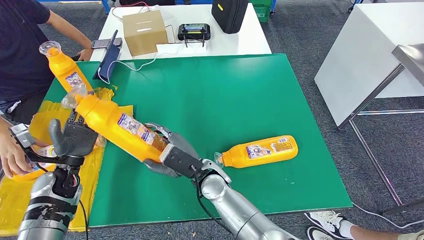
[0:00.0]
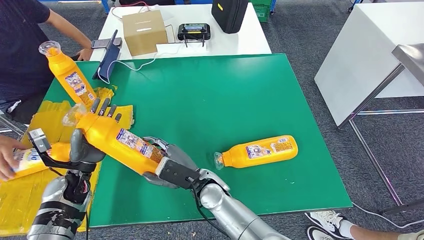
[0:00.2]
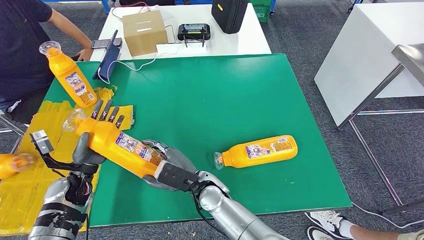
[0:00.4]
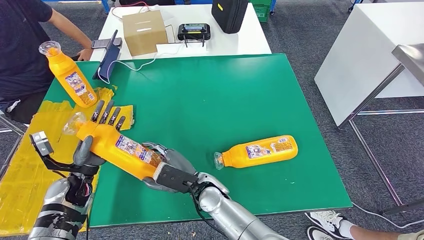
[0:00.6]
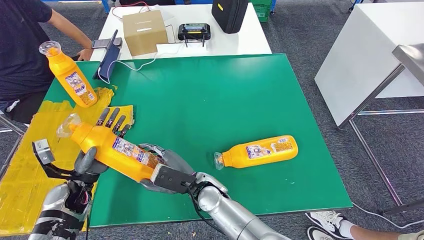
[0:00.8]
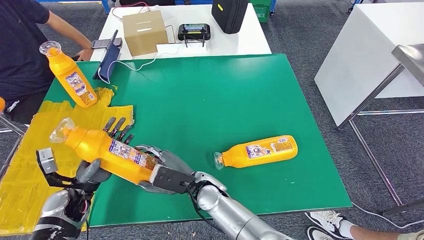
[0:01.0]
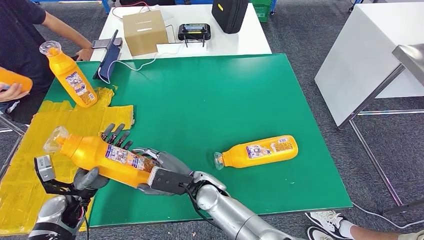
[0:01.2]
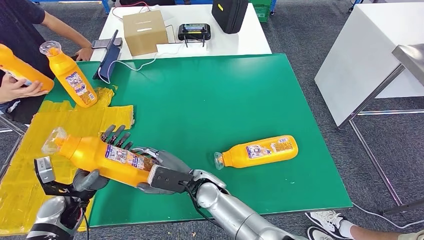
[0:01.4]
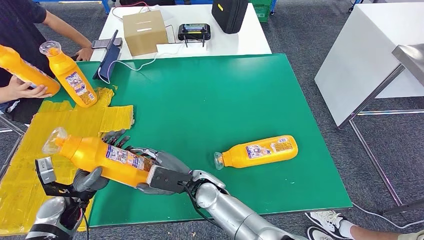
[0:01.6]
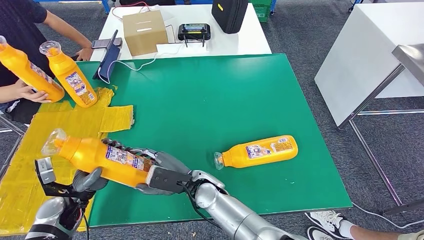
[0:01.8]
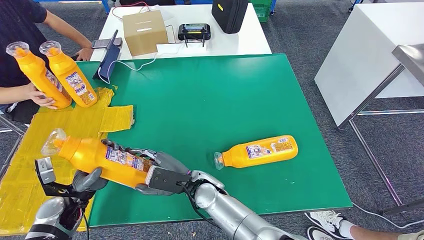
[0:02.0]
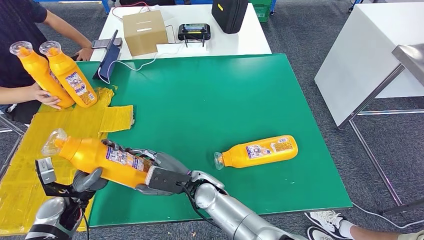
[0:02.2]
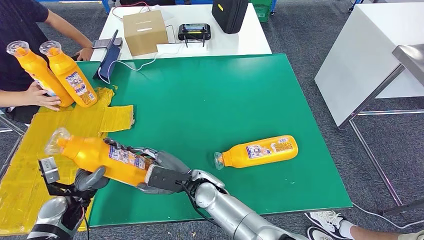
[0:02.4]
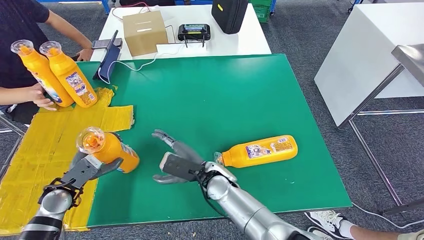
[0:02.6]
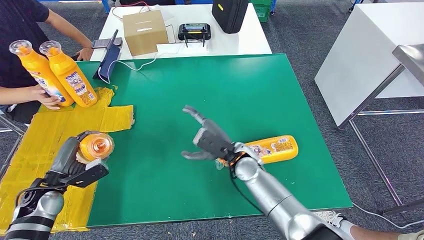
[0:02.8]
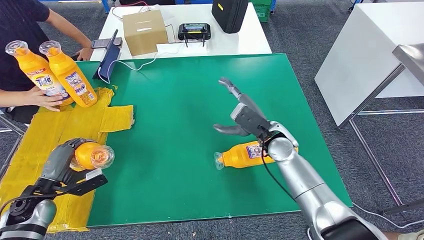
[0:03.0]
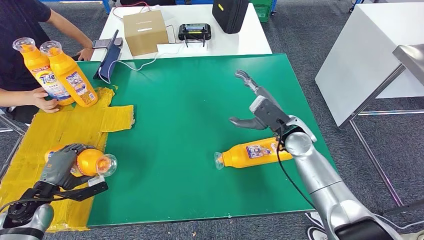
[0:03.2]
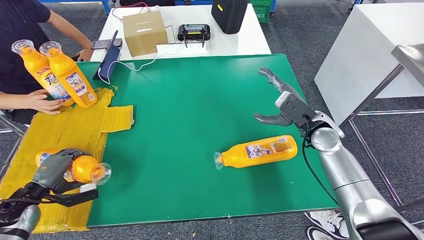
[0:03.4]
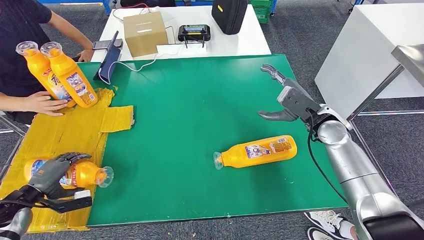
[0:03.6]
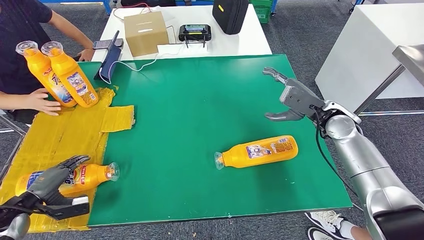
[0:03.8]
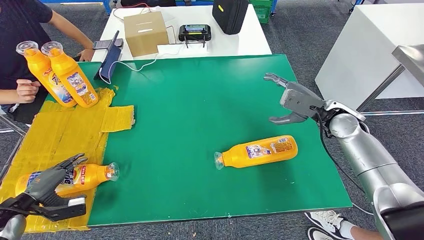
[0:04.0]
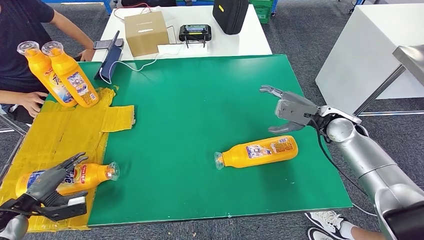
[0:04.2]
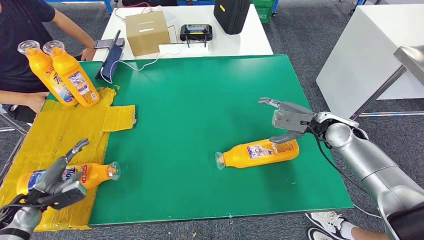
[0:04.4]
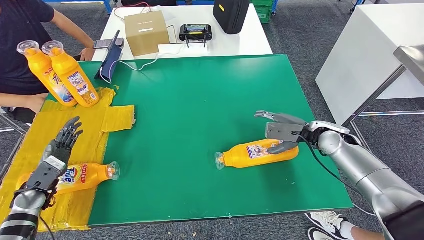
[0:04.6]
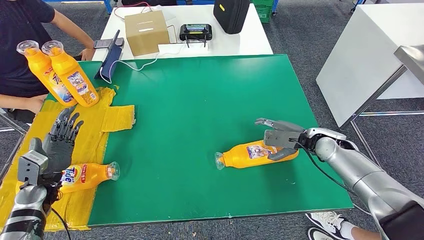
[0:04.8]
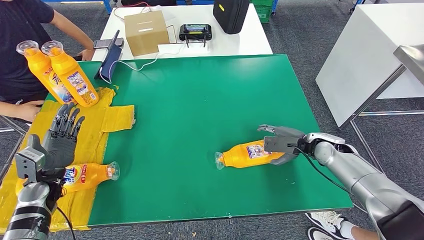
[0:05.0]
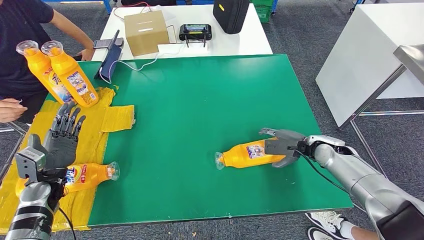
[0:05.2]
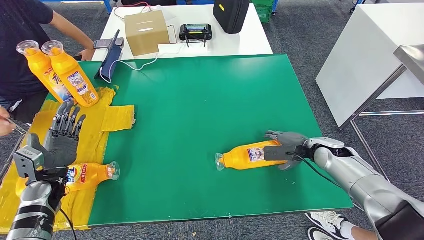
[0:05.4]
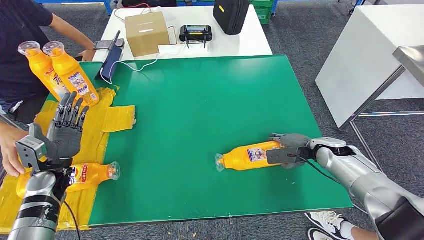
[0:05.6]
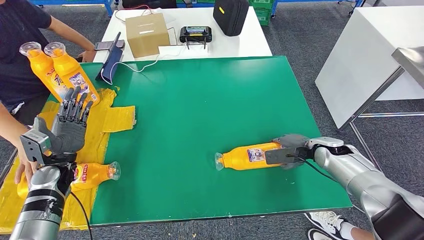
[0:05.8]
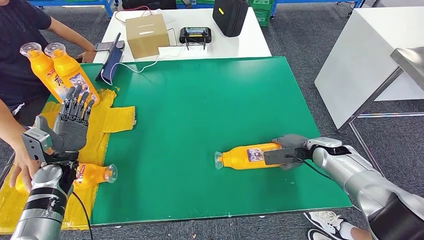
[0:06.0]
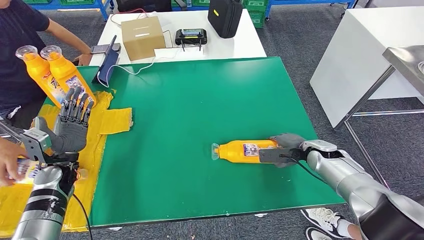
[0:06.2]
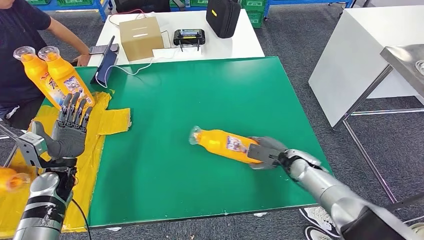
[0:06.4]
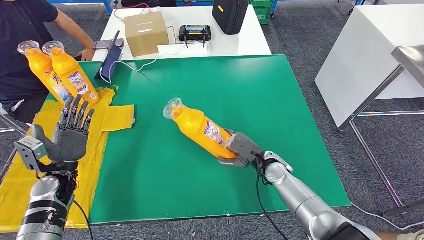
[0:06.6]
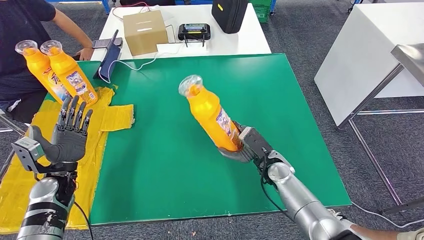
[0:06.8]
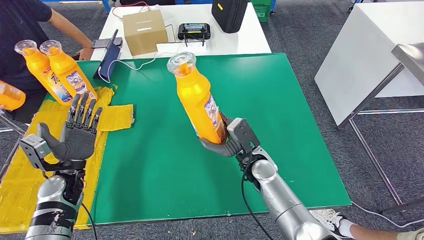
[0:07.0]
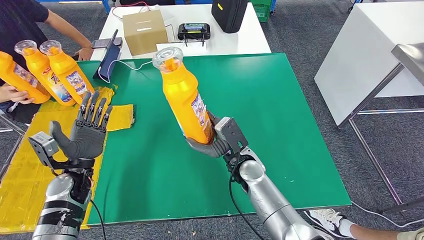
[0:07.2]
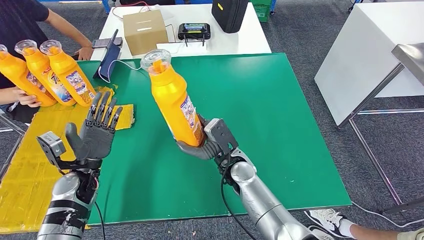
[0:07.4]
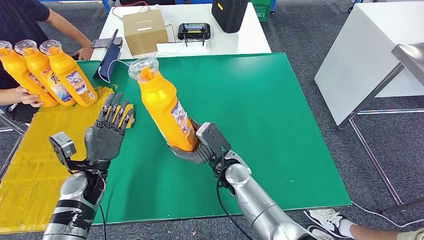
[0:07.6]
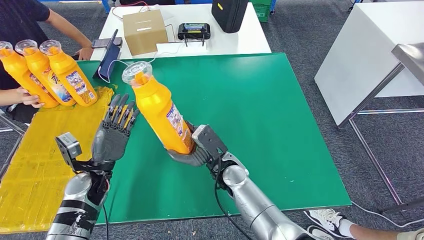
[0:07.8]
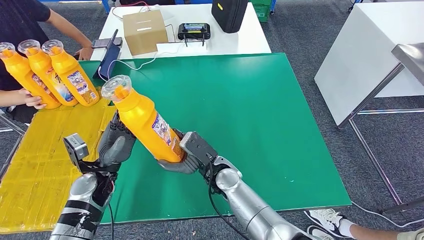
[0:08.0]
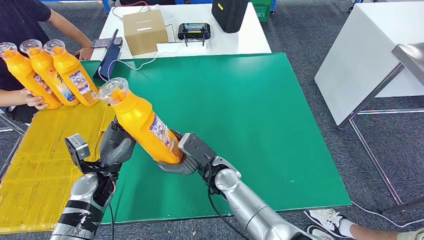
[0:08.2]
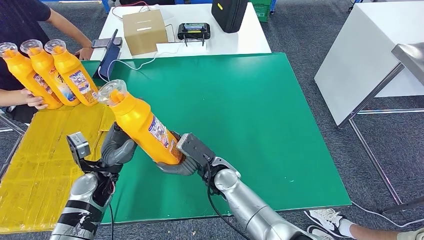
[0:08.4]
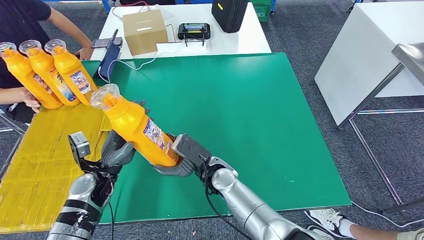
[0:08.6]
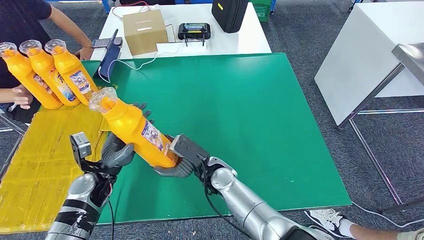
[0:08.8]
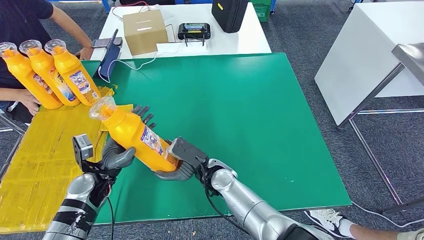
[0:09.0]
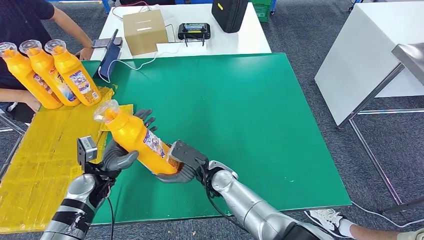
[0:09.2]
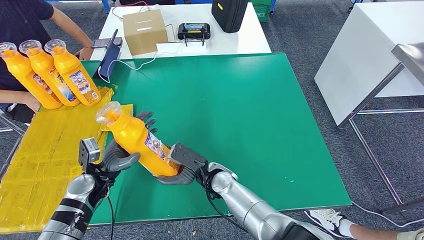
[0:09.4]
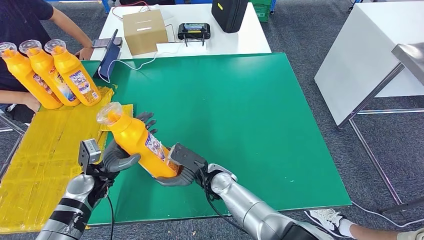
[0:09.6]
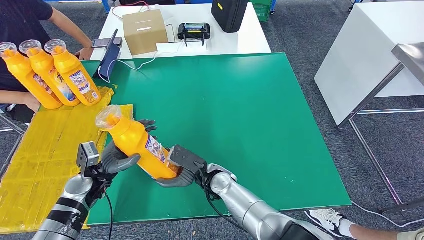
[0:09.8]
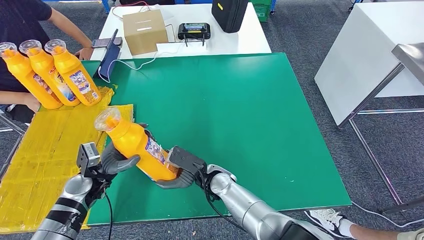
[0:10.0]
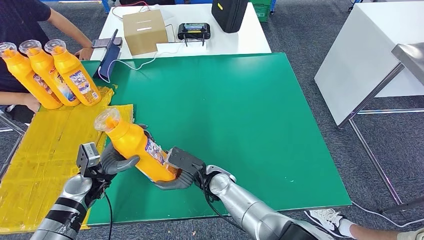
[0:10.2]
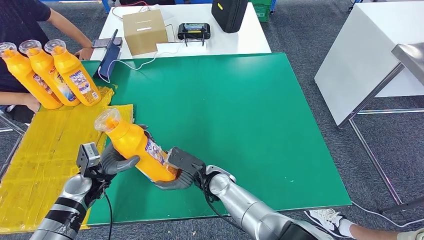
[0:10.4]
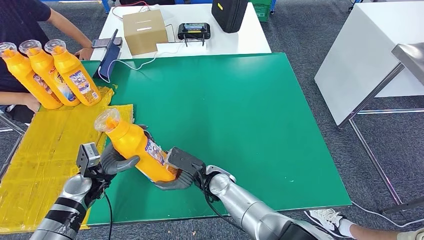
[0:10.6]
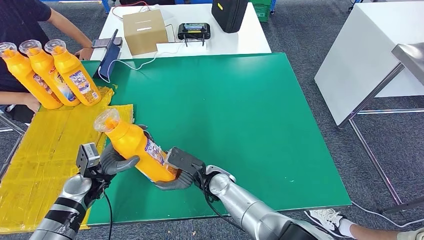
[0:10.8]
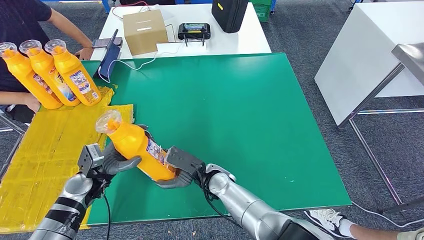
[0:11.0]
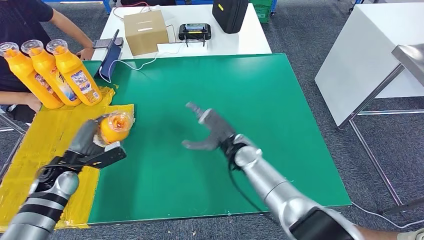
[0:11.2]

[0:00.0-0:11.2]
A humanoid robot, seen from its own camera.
Step, 0:01.8 to 0:05.6: Flip the bottle to face forward.
Step, 0:05.8 to 0:09.2: Pick up the bottle from the table.
0:00.0 to 0:01.6: The left hand heads backward, covering roughly 5 cm.
0:08.0 to 0:09.6: The hands stay close to where they were, moving slightly.

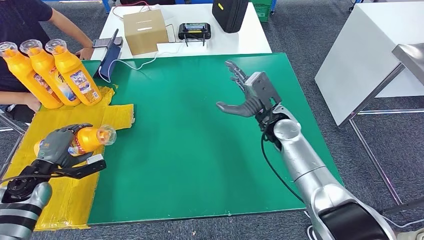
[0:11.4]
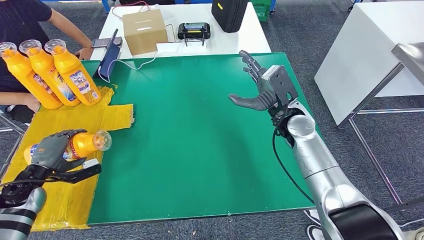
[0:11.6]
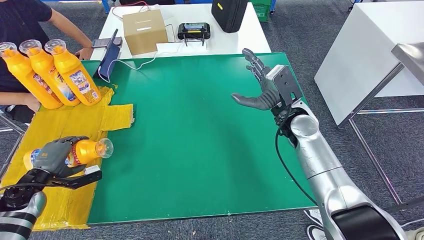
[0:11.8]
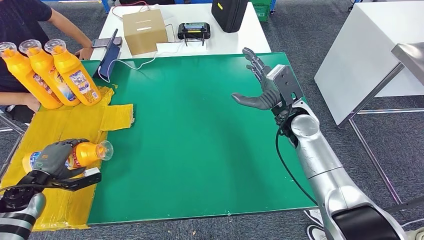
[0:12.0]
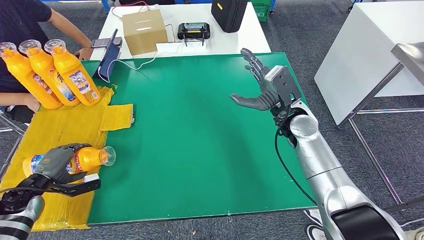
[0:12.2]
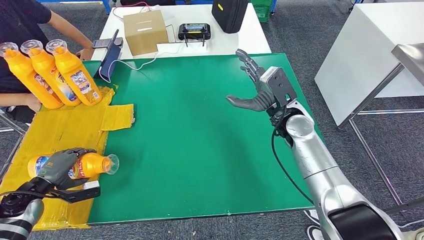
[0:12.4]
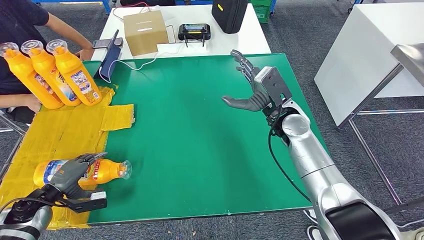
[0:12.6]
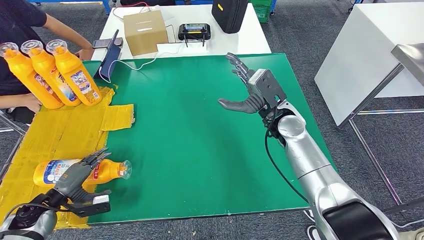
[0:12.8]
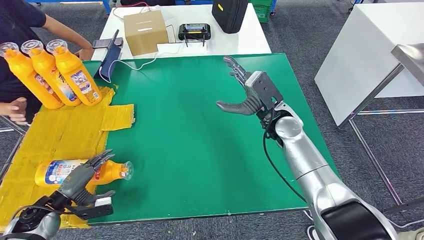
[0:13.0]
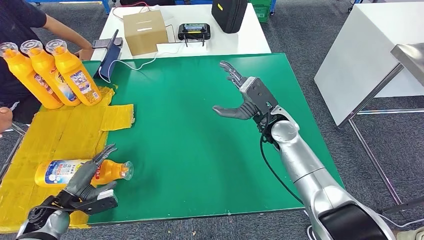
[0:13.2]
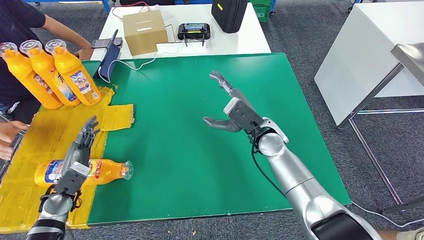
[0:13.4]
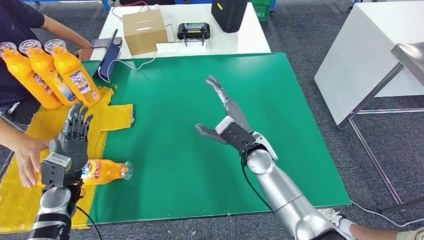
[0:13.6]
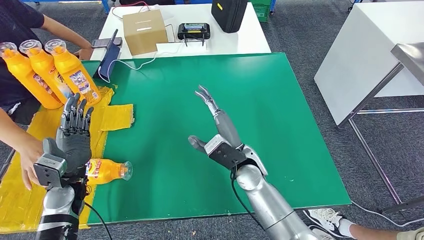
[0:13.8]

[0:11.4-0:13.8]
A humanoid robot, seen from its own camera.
Step, 0:11.4 to 0:13.8: Flip the bottle to face forward.
0:11.4 to 0:12.6: The left hand is displaced downward by about 5 cm.

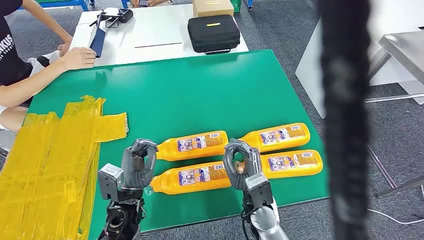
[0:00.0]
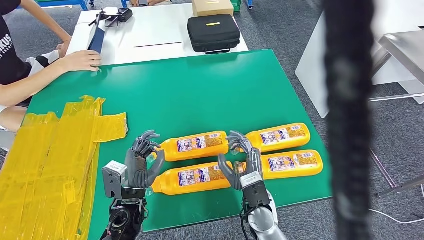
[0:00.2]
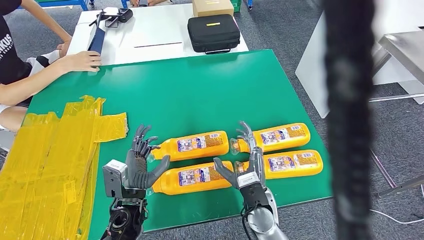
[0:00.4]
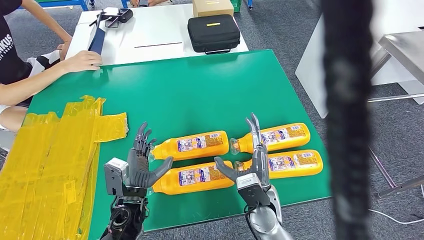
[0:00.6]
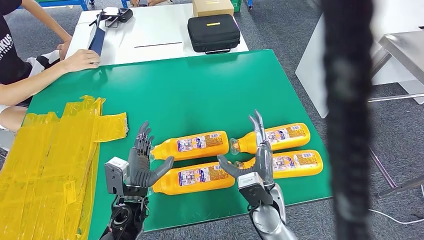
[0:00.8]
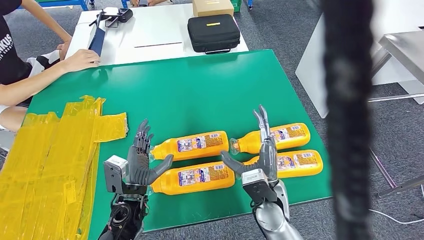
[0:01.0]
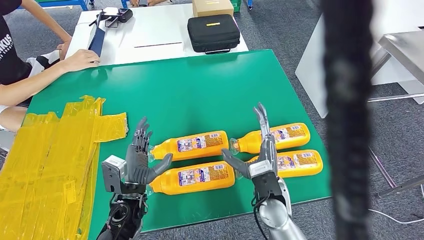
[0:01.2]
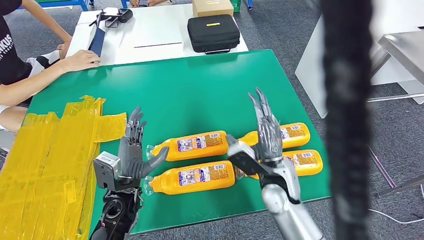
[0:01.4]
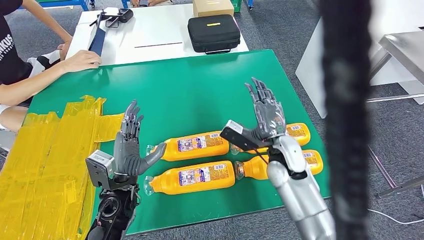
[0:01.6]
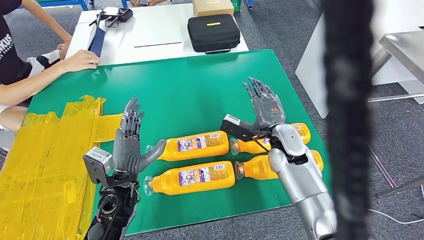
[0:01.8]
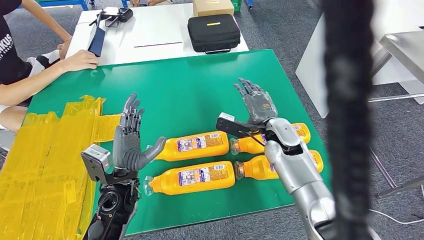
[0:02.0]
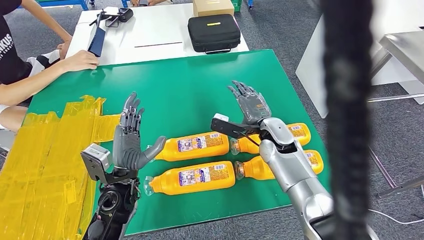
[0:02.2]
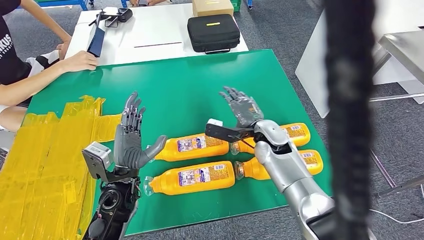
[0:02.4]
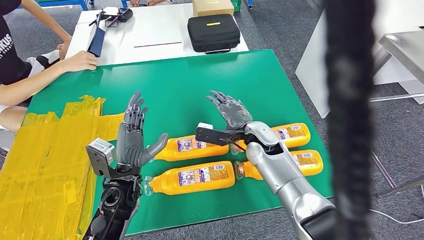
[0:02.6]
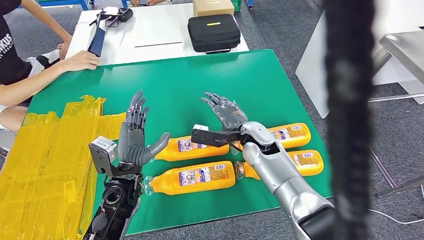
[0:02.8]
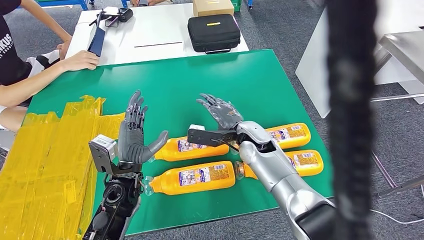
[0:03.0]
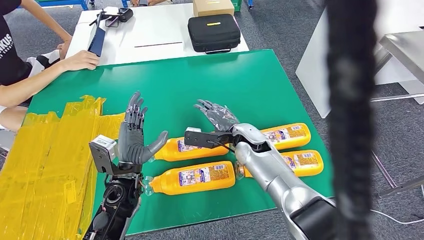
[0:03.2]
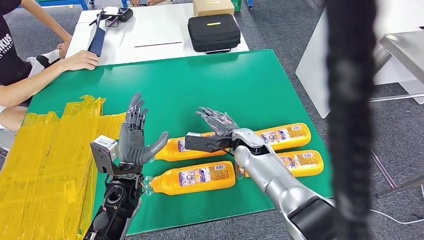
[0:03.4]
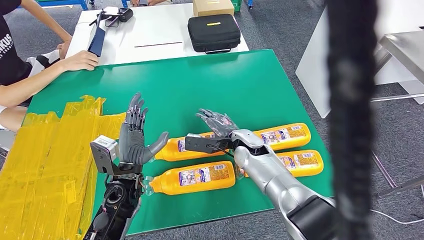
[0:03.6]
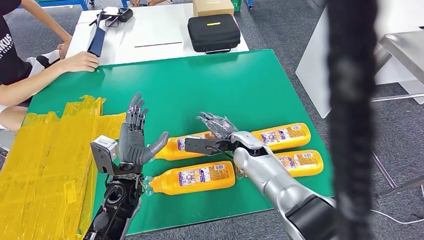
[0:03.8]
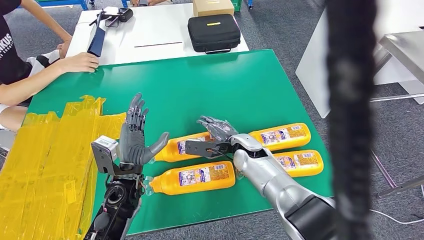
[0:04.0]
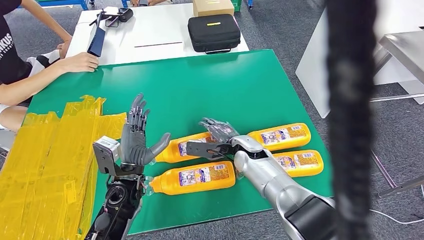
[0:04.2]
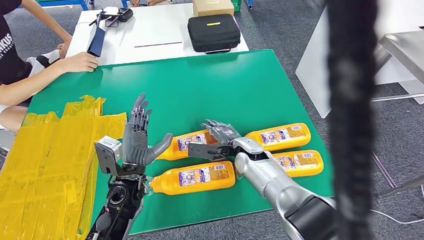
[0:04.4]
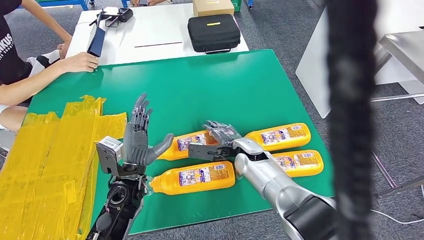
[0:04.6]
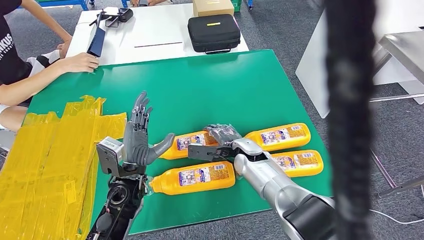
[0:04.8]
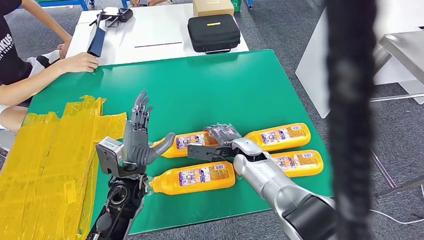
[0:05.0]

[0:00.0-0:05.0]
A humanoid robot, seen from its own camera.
0:01.6 to 0:03.4: The right hand shifts roughly 10 cm to the left and forward.
0:03.4 to 0:05.0: There are only small adjustments of the hands.
